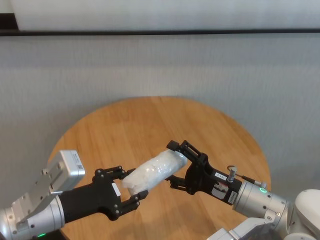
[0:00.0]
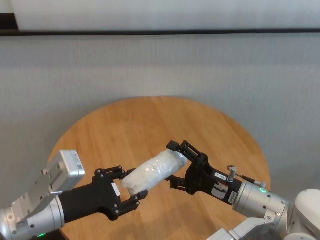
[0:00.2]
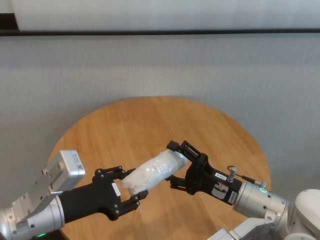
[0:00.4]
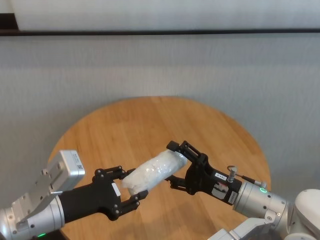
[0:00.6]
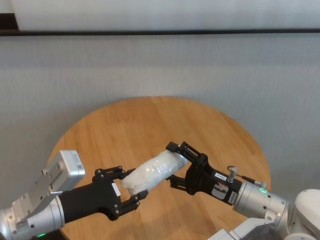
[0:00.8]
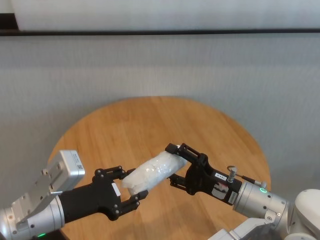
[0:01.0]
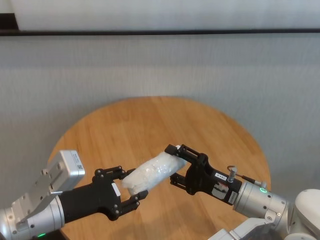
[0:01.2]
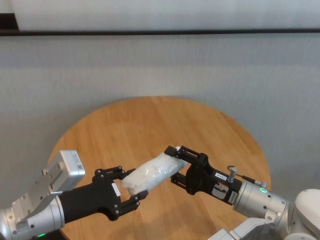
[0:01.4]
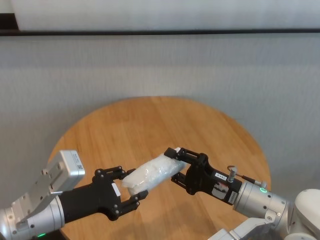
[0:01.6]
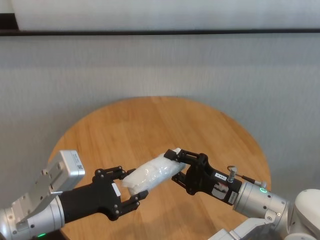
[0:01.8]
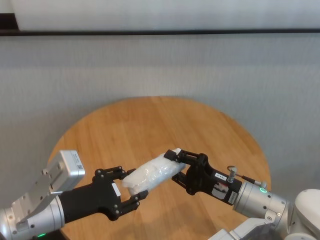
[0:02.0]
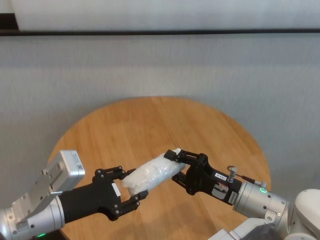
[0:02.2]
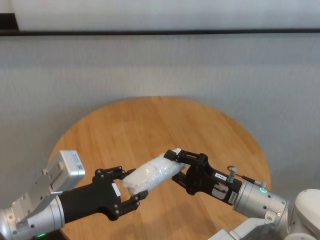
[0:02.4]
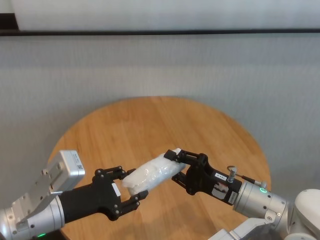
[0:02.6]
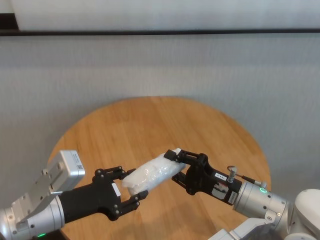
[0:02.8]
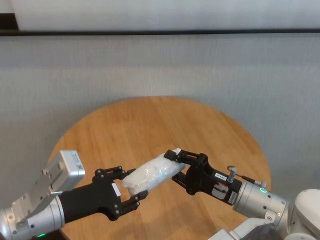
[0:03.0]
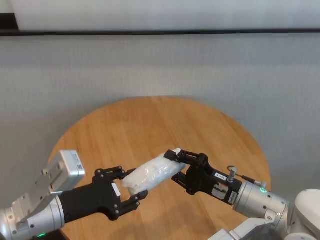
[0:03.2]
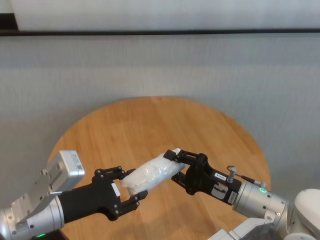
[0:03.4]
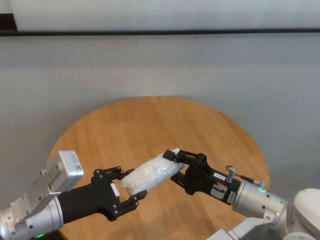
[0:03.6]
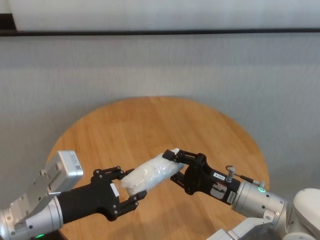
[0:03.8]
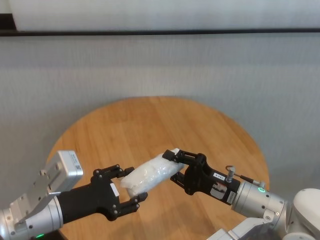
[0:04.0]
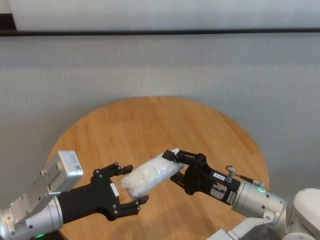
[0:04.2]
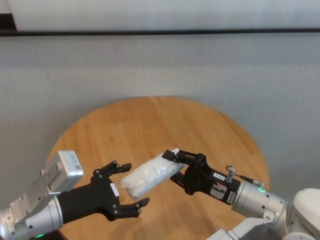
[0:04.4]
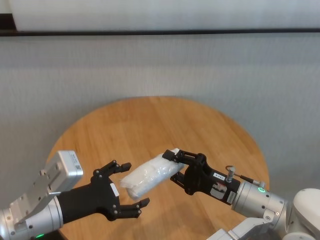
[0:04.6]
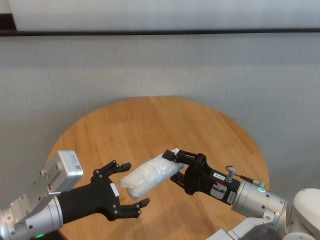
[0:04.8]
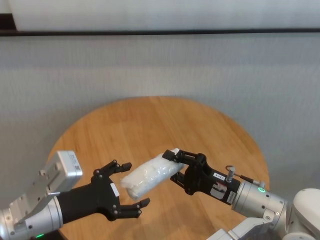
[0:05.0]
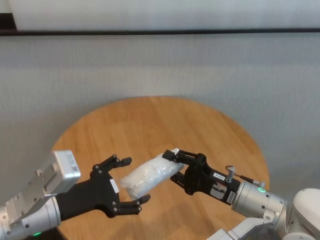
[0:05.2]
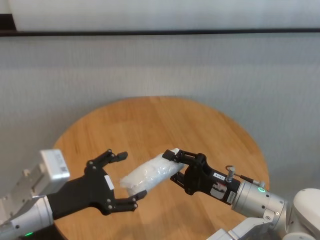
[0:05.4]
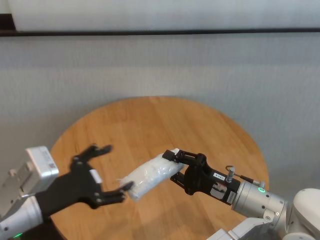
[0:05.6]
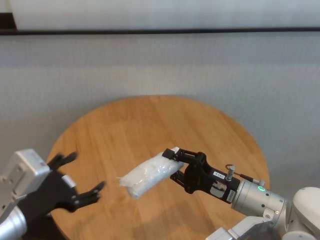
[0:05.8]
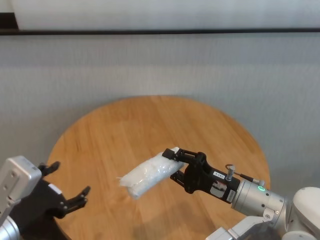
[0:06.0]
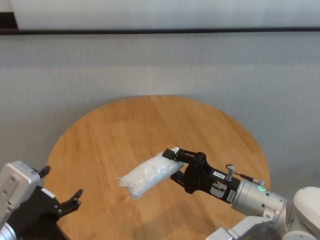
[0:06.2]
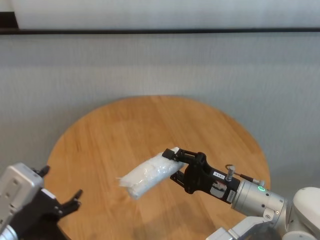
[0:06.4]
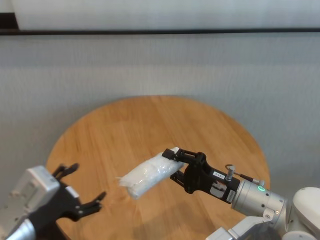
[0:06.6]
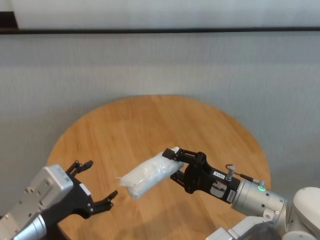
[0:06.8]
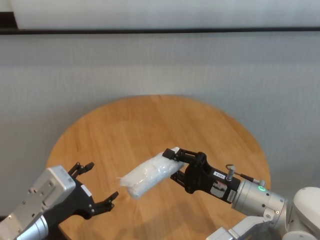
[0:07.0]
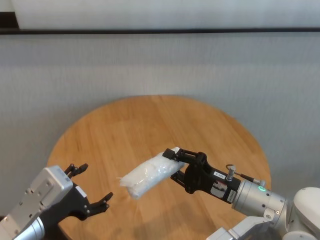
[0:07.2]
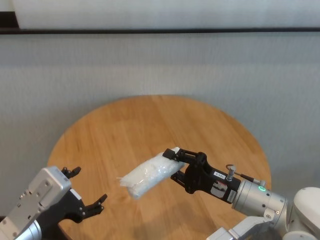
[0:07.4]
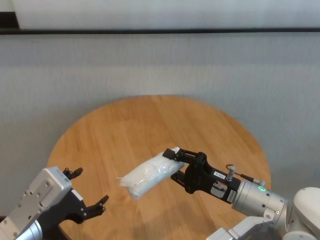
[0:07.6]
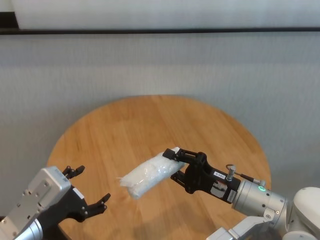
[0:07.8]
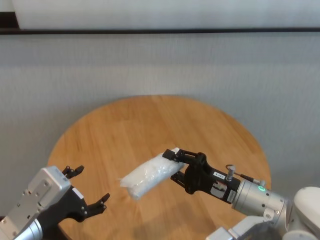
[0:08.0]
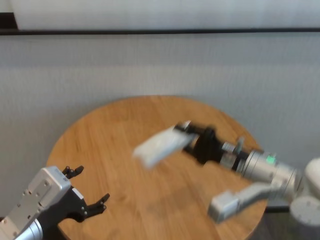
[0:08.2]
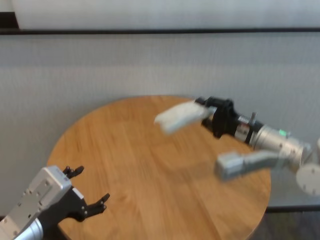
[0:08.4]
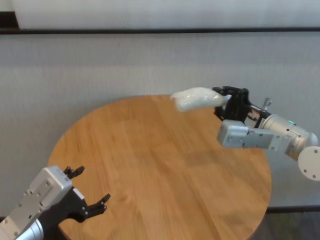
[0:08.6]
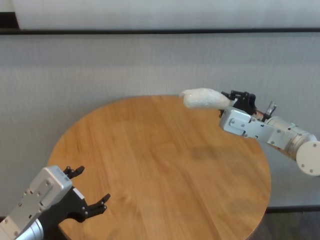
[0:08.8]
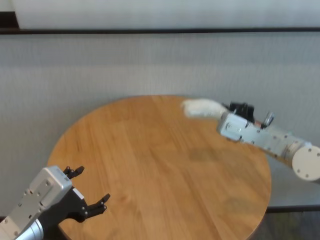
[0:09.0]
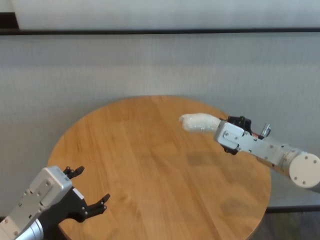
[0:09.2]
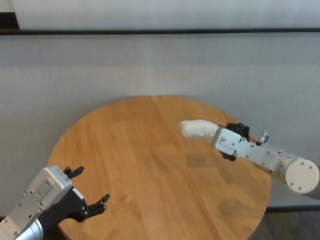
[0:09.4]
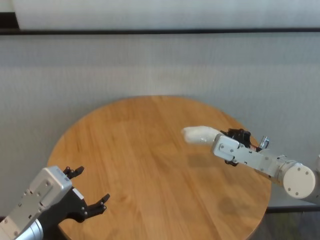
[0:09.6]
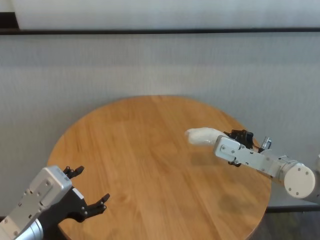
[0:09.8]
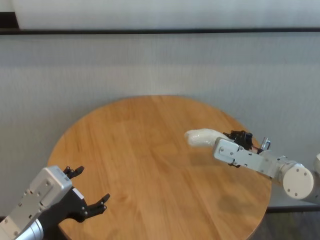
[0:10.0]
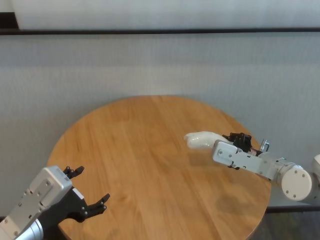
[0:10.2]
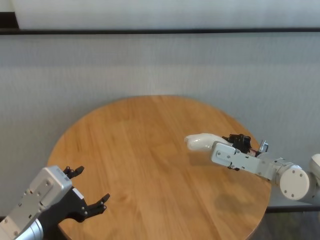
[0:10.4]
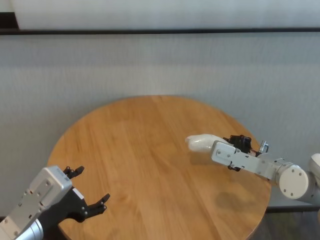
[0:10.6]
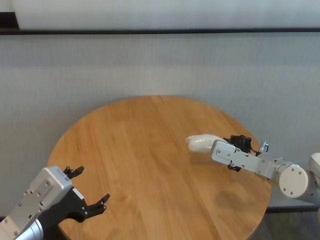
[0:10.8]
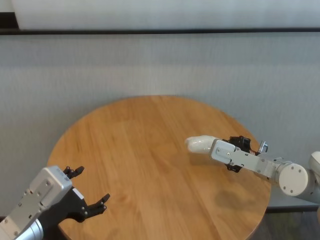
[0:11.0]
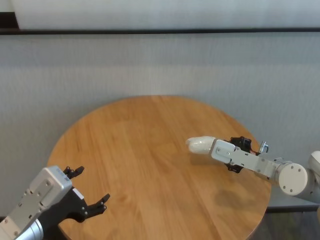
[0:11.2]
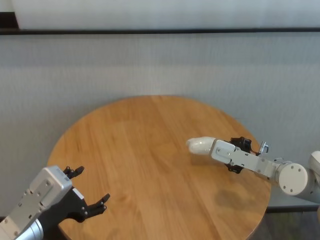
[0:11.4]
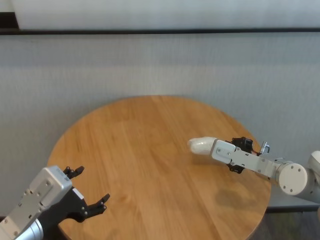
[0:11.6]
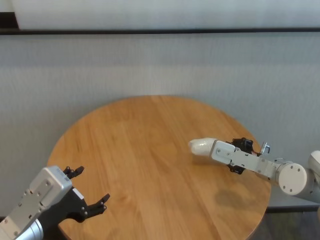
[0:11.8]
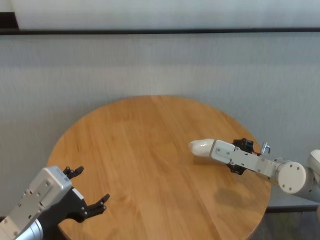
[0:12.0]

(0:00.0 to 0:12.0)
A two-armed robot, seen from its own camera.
Task of the whole recording: One hand took the sandbag from the other hand and placed it on the table.
Step, 0:00.0 - 0:05.2: Pass the paper ball to the right gripper.

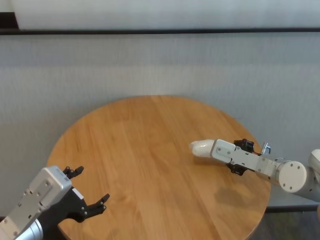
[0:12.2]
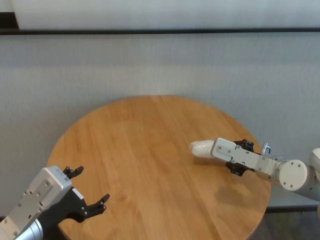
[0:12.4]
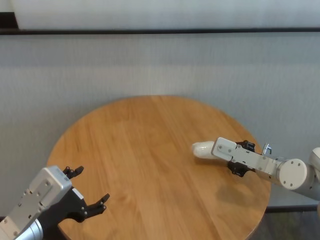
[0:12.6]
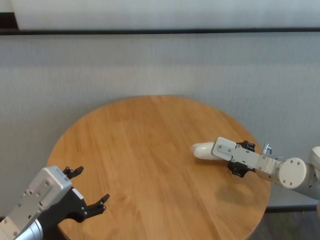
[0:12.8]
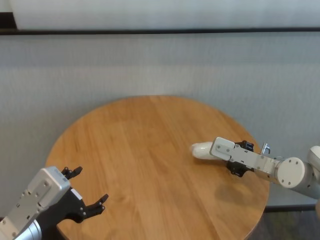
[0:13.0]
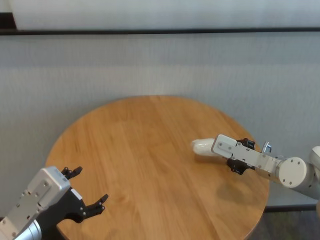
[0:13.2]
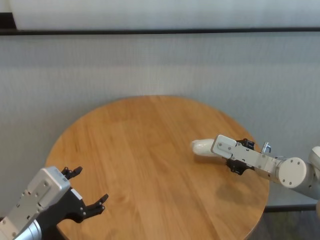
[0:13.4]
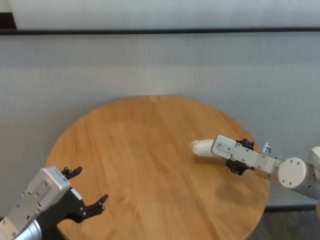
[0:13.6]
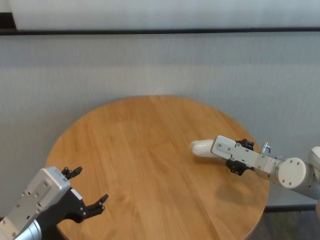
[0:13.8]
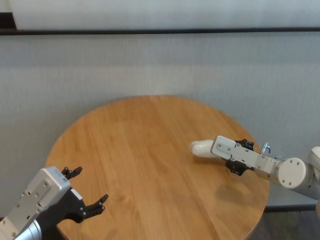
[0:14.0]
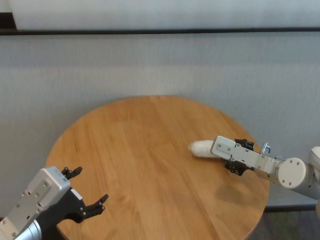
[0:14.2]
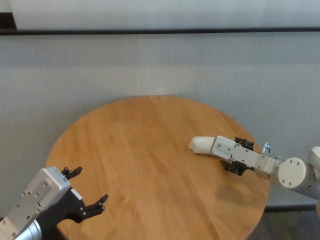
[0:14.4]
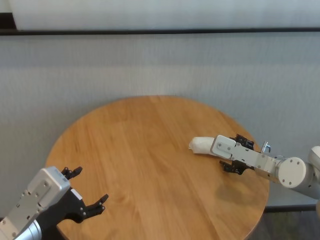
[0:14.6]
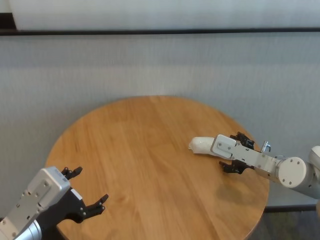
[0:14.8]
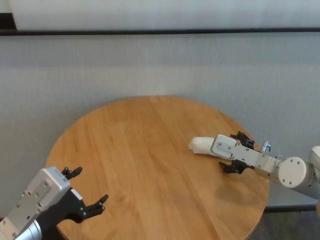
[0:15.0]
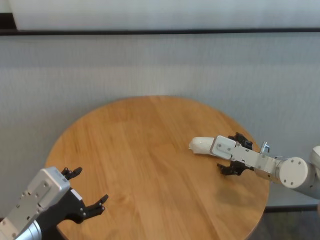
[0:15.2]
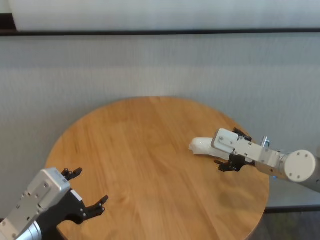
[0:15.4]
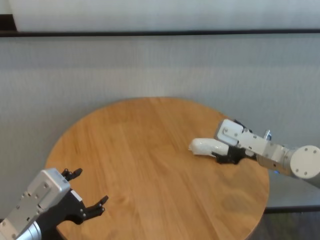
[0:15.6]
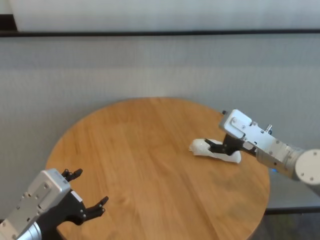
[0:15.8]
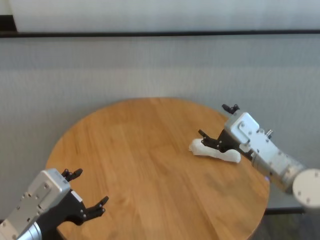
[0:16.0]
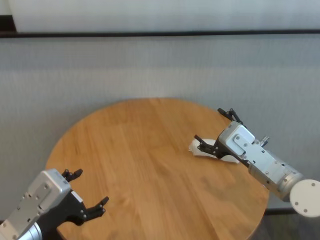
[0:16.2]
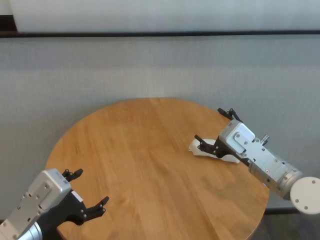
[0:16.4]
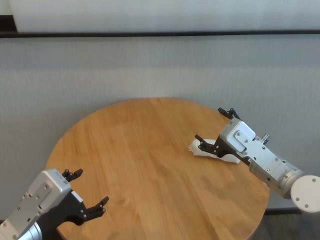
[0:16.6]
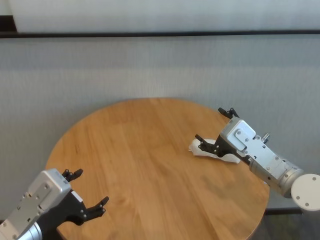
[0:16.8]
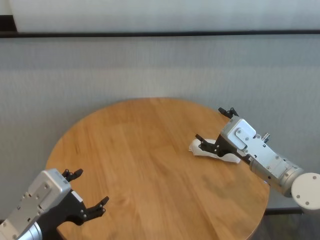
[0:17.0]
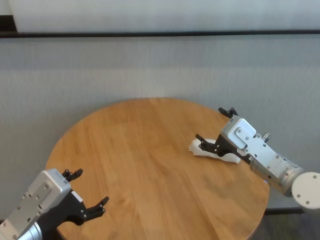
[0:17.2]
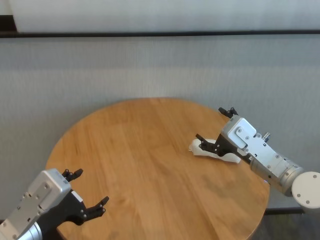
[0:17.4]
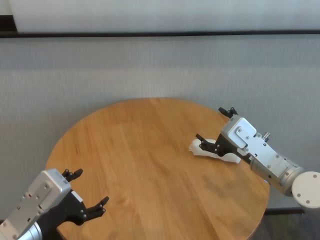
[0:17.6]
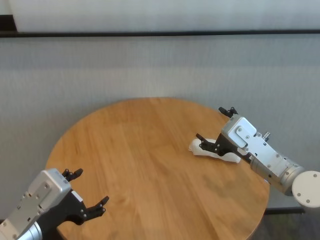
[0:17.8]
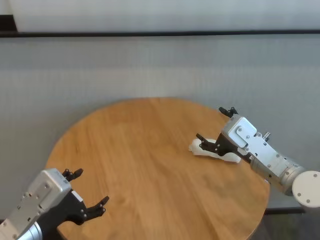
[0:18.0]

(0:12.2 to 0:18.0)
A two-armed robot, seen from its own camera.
Task of the whole recording: One hand took the sandbag from the other hand and placed it on the table.
Step, 0:12.2 - 0:14.2: Place the paper ball on the table with right gripper.
